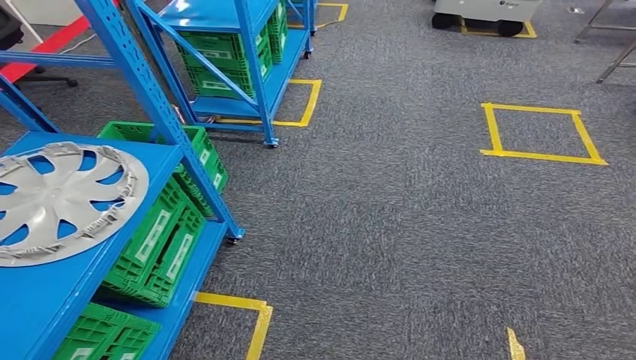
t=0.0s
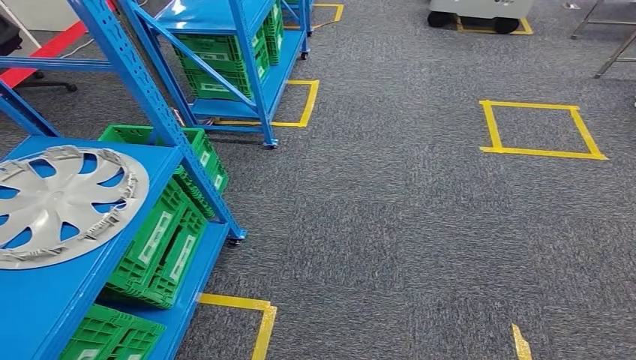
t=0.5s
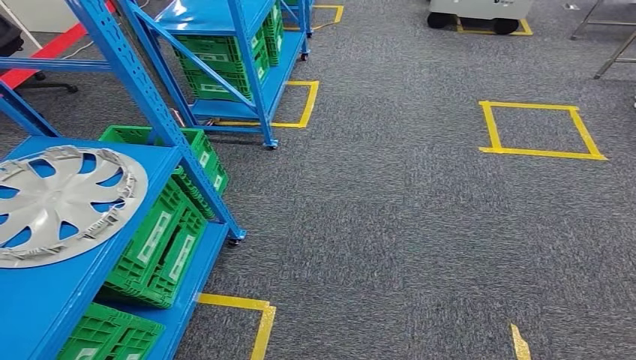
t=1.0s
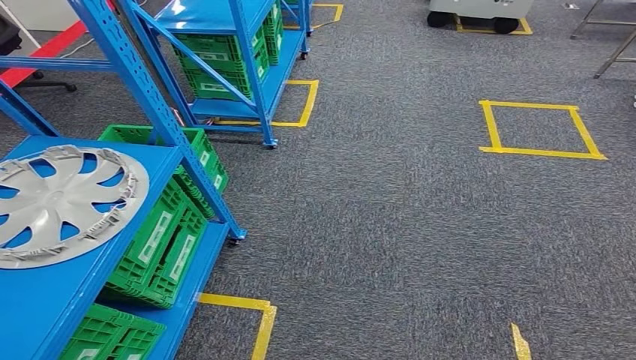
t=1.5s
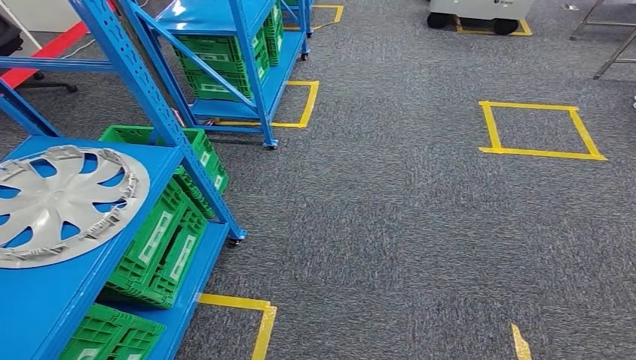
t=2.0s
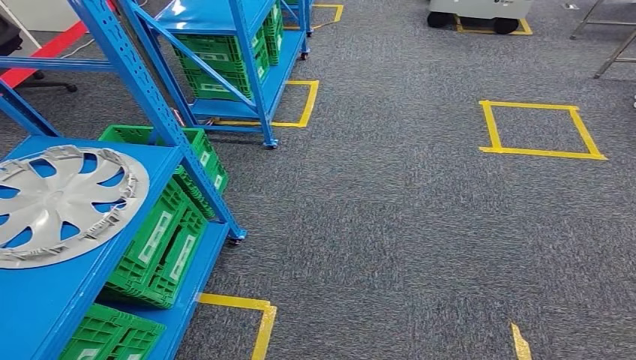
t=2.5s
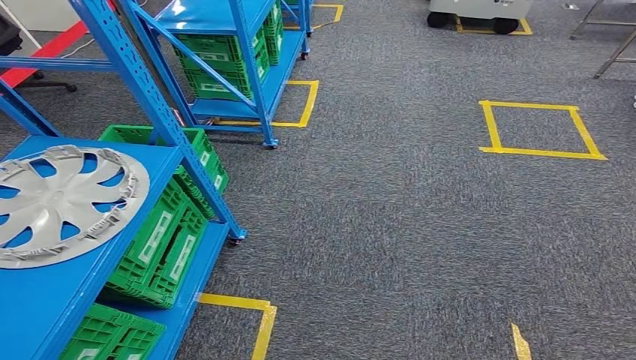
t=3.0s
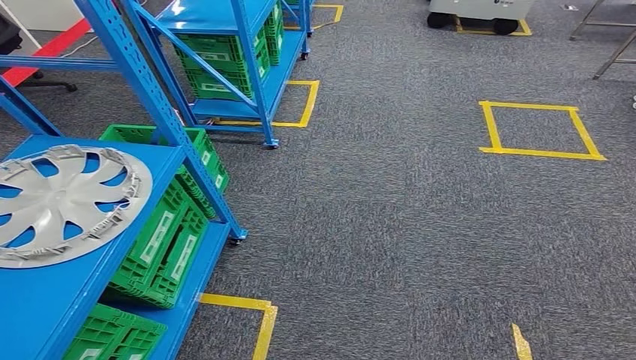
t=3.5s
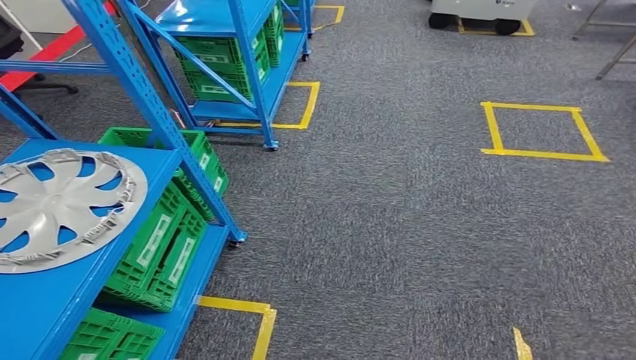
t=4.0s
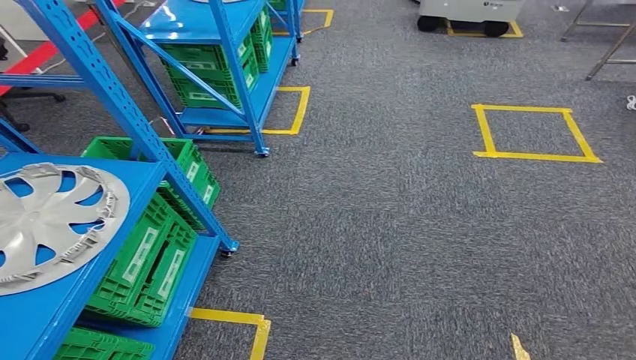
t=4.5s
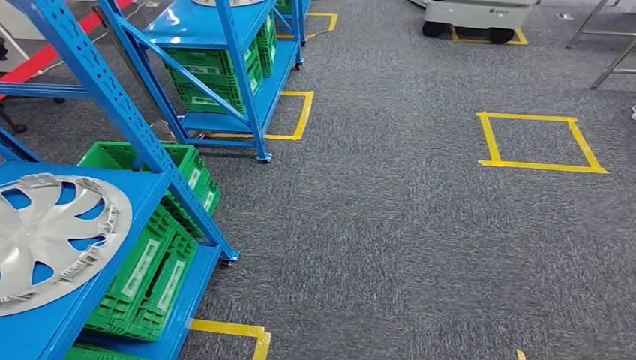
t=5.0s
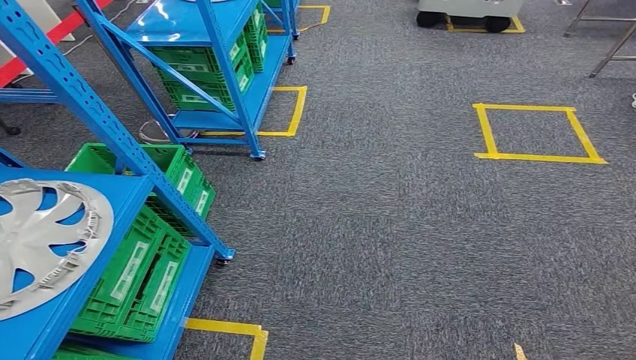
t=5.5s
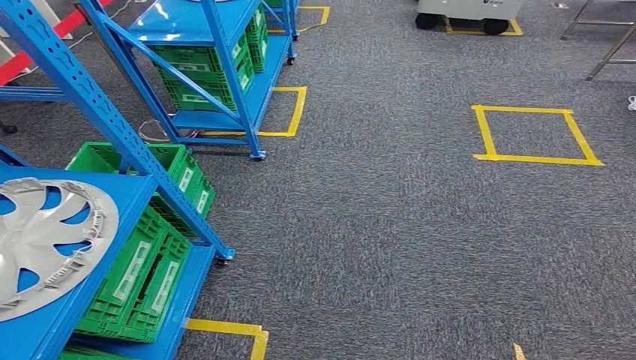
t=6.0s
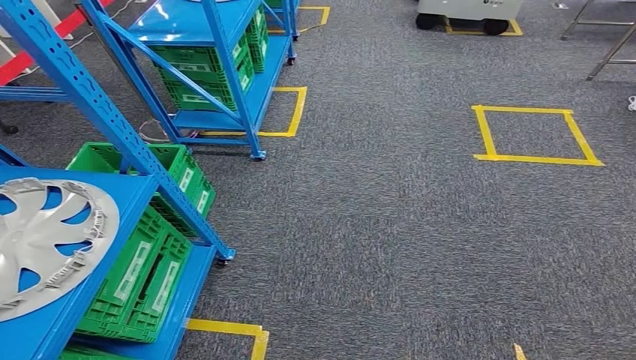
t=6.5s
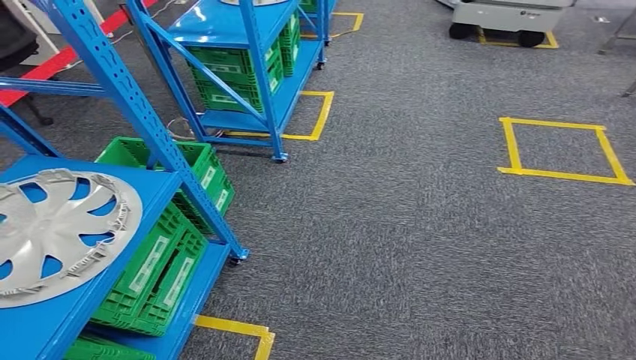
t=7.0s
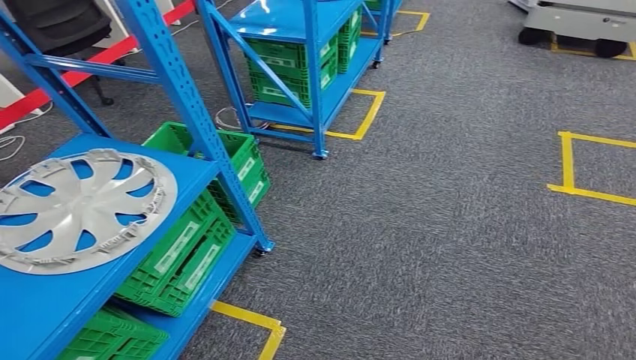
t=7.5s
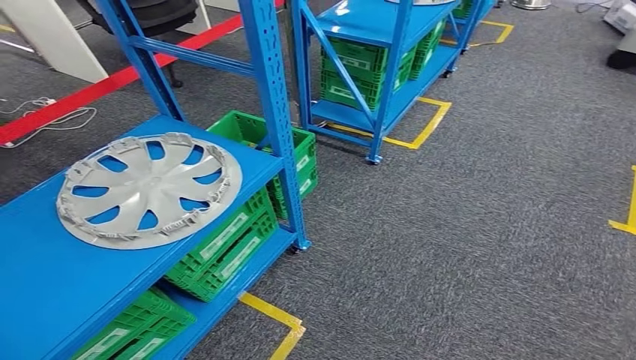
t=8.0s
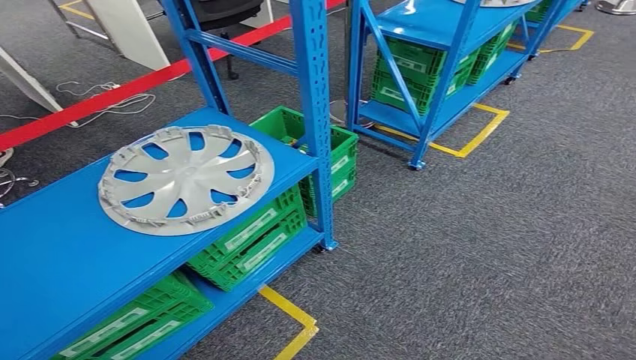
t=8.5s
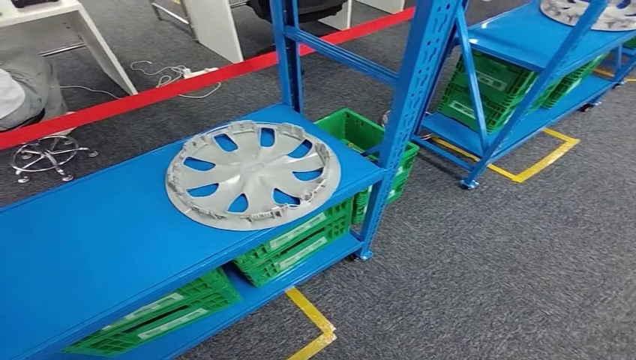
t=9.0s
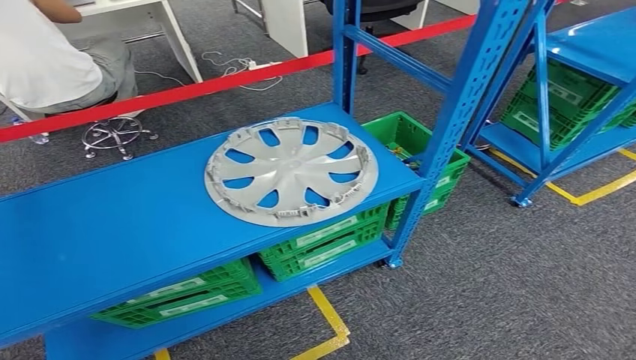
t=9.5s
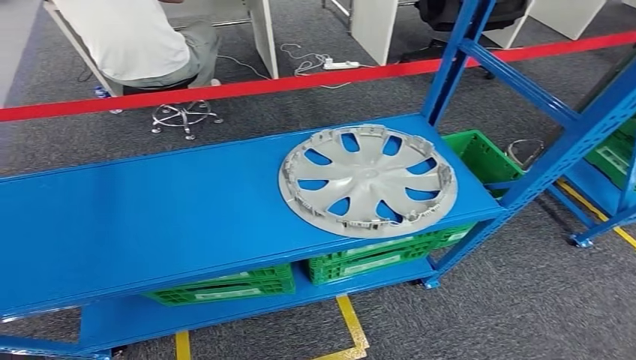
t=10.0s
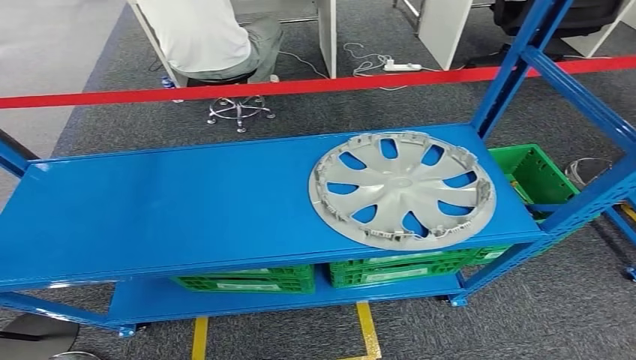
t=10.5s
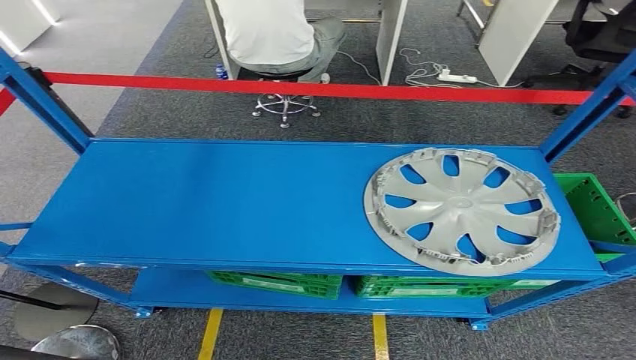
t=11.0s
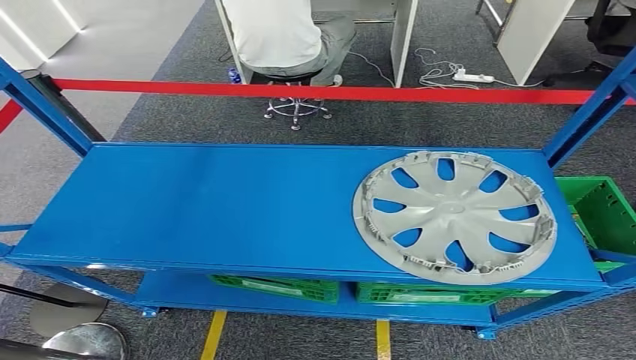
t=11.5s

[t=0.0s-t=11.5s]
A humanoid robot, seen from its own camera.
Step, t=0.0s to t=11.0s: Return to the initial position at the workbench.
t=0.0s to t=4.0s: Neither hand changes place.
